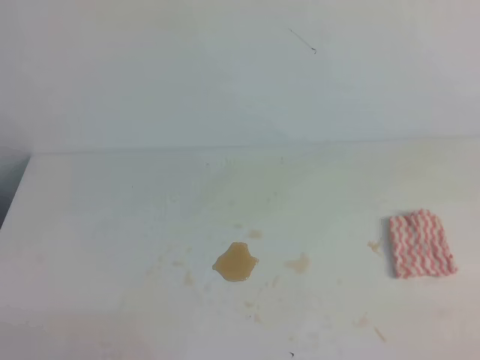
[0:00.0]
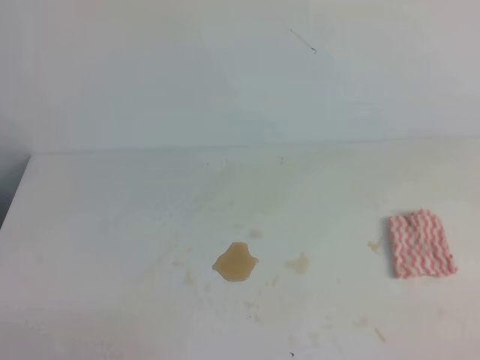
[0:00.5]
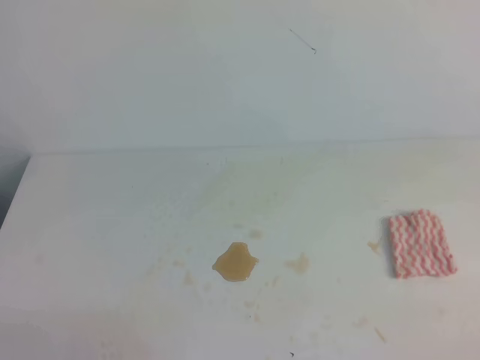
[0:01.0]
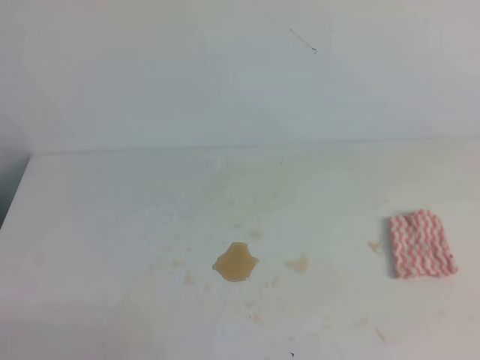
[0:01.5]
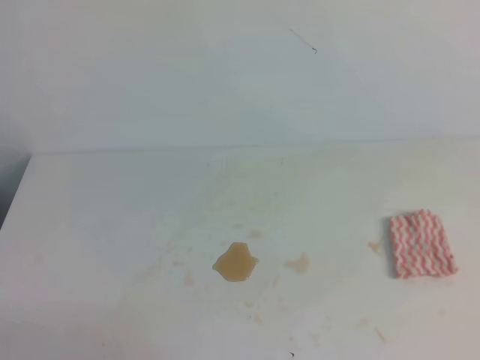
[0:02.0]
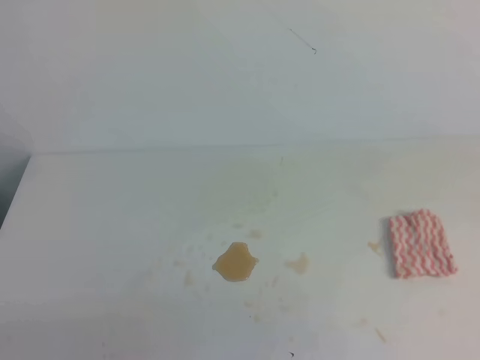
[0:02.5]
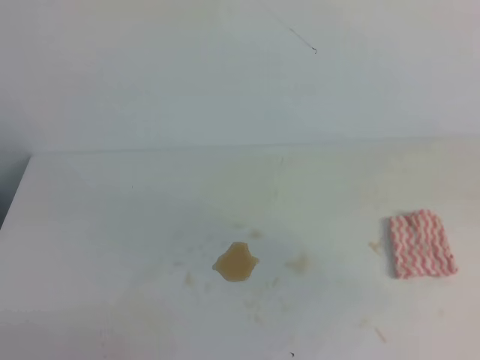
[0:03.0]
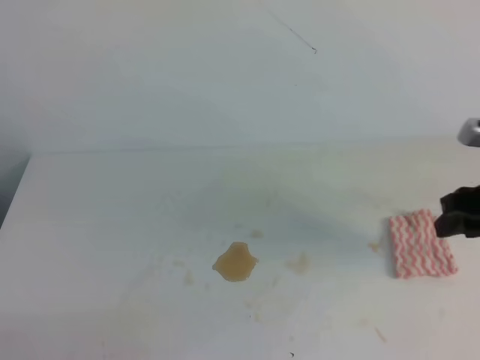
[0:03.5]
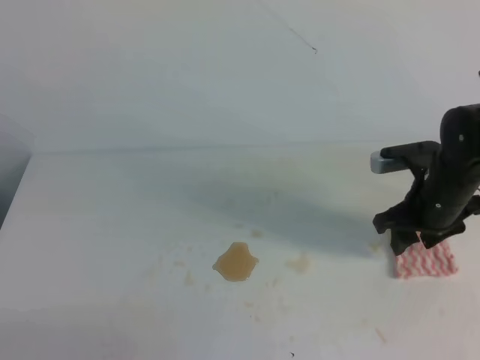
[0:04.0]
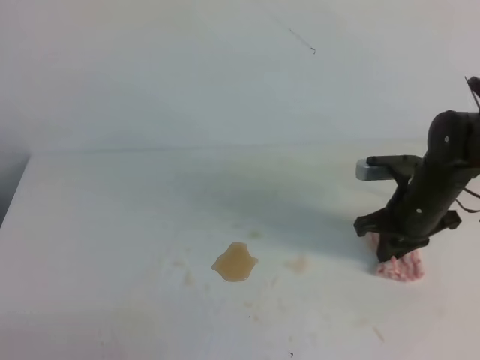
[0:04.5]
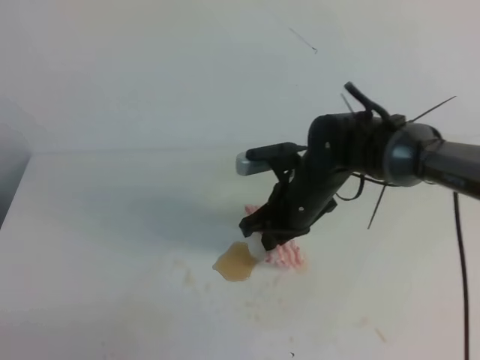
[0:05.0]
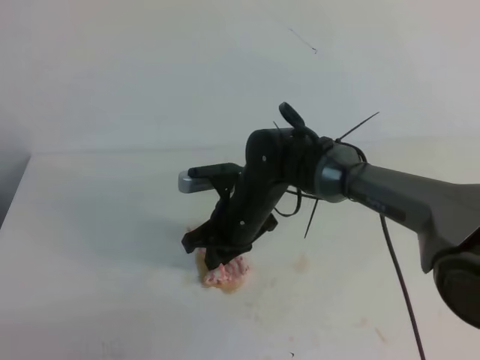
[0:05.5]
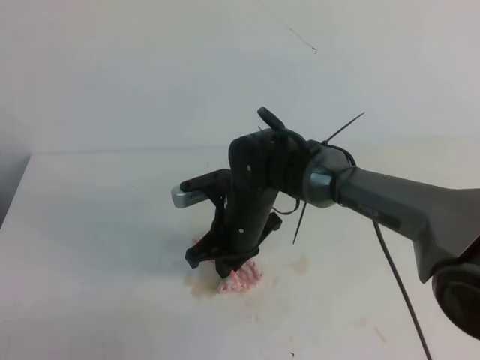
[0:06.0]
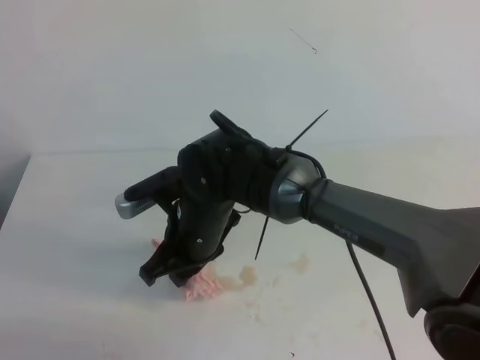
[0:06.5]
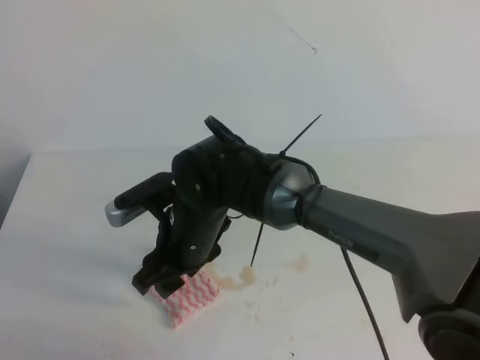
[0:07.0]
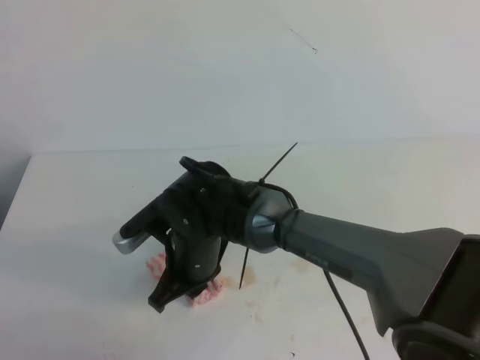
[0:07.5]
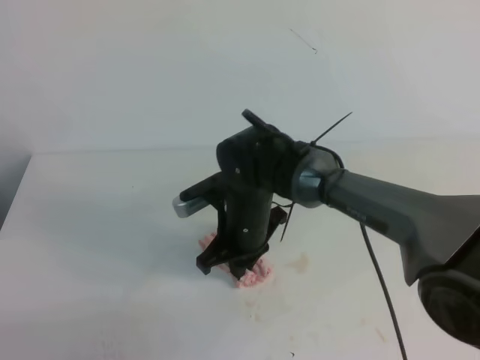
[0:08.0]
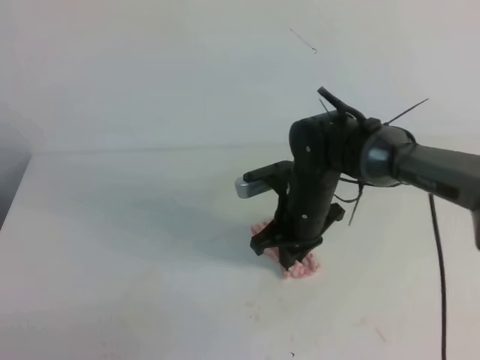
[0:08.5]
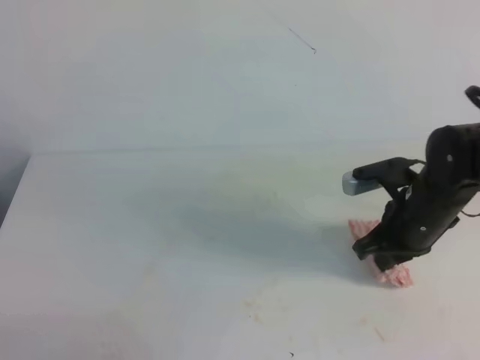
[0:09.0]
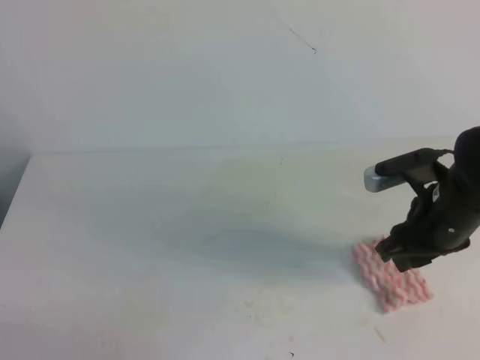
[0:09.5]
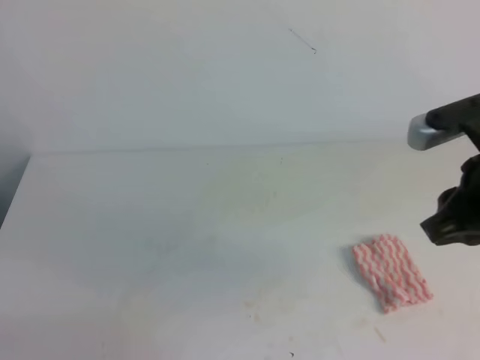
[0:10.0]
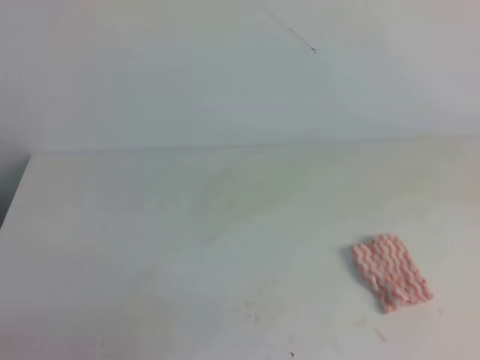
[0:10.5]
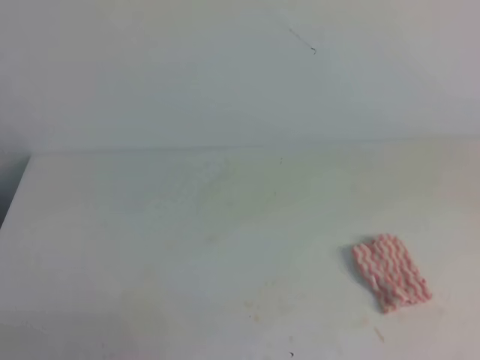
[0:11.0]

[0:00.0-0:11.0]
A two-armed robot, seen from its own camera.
0:02.0 to 0:03.5: The right gripper travels forward by roughly 25 cm, and opens up.
0:03.5 to 0:05.5: The right gripper moves to the left, about 30 cm, and closes up.
0:05.5 to 0:07.5: The right gripper heads to the left and backward, covering some 10 cm, and opens and closes again.
0:07.5 to 0:09.0: The right gripper is displaced to the right by some 25 cm.
0:09.0 to 0:11.0: The right gripper goes some 35 cm upward, backward and to the right, and opens and closes again.

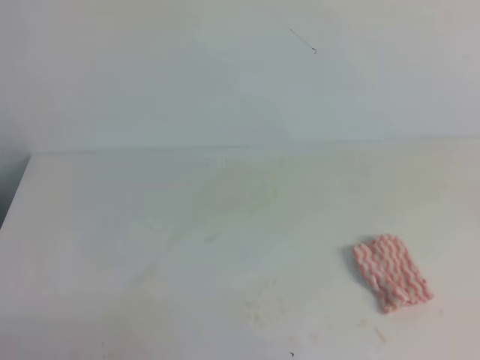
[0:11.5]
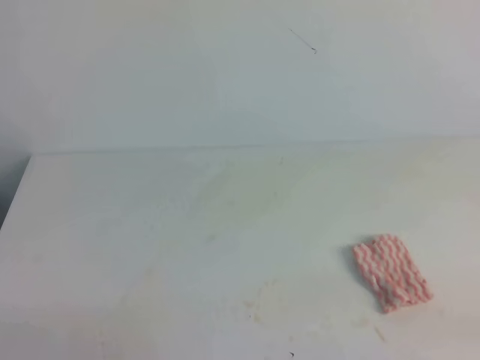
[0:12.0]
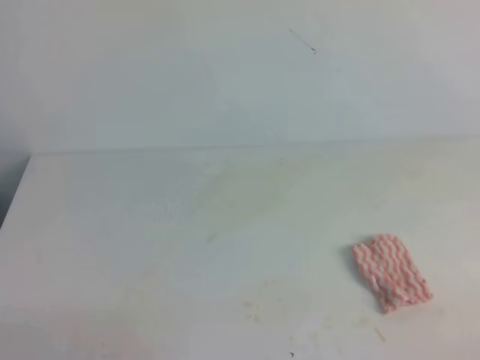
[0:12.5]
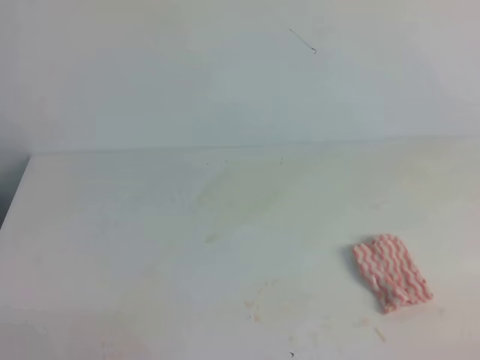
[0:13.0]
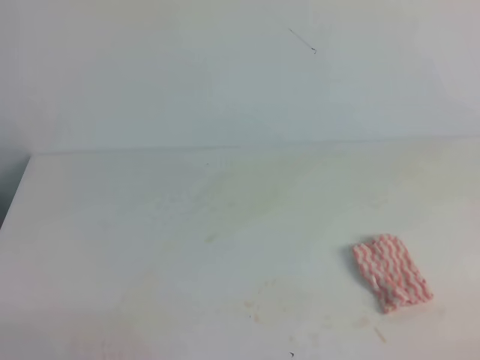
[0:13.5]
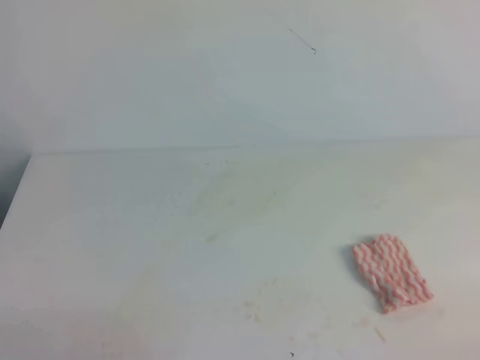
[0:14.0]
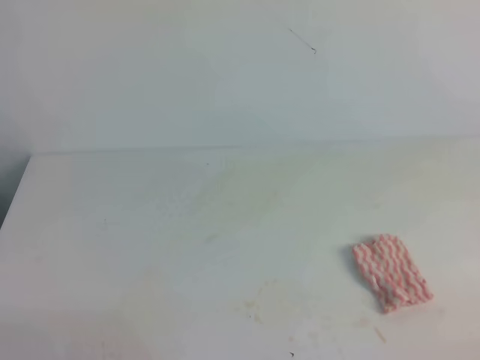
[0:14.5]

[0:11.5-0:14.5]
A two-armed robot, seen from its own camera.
0:13.0 to 0:14.5: Both grippers stay put.

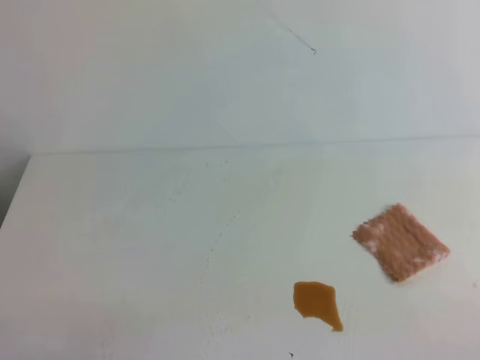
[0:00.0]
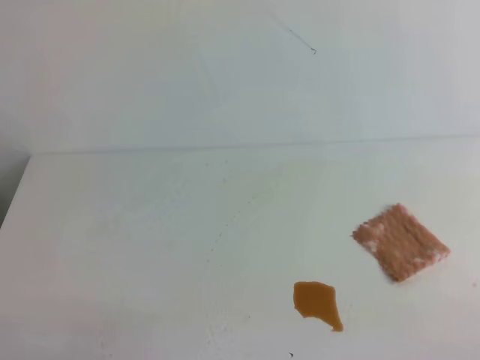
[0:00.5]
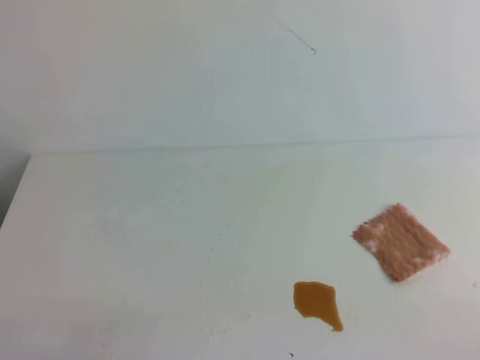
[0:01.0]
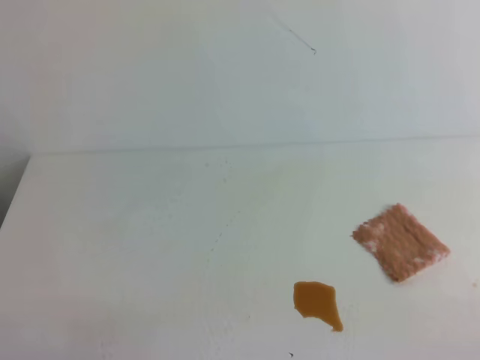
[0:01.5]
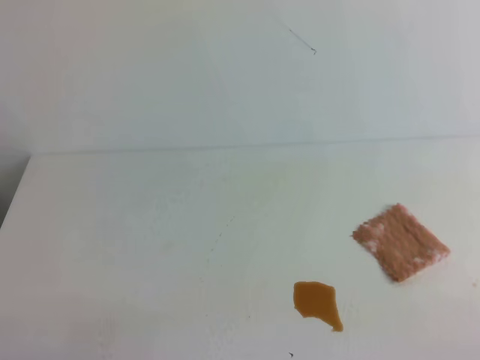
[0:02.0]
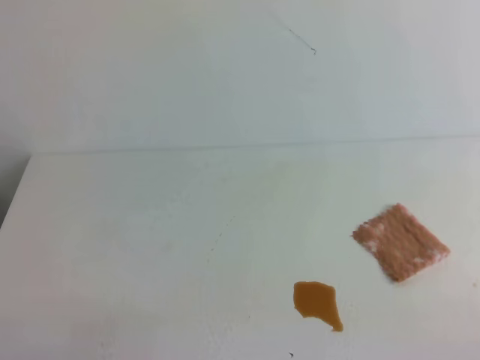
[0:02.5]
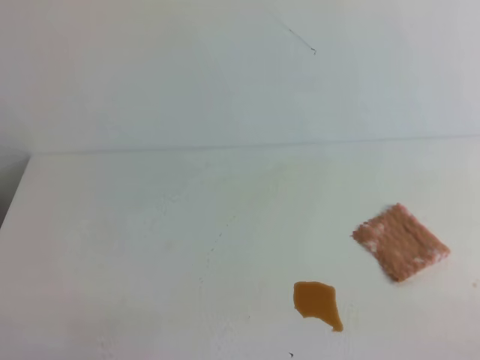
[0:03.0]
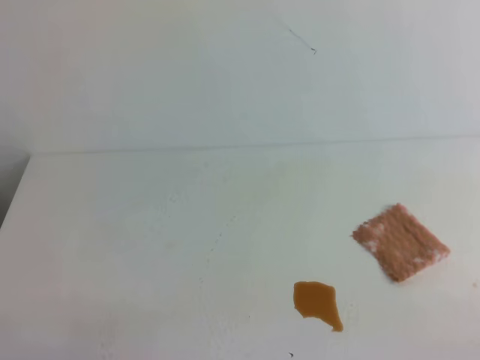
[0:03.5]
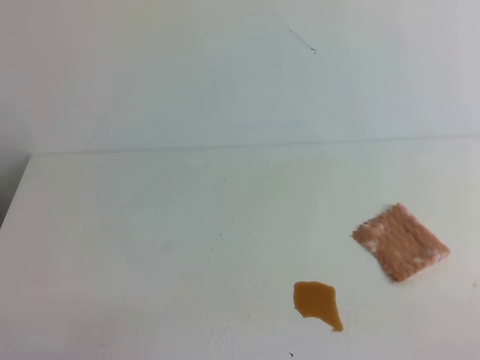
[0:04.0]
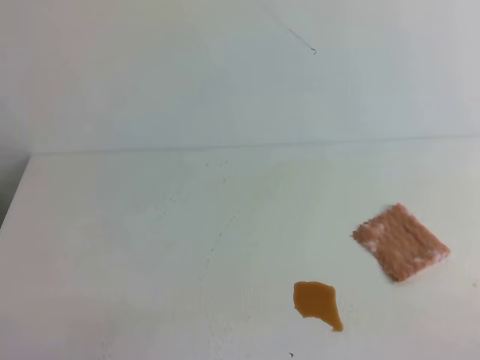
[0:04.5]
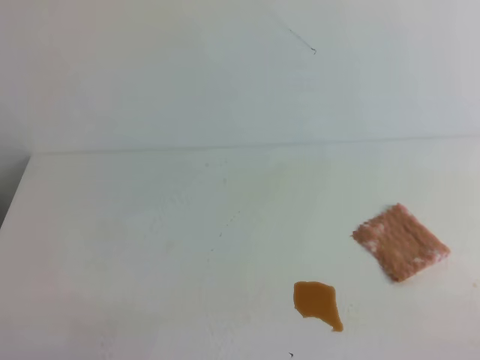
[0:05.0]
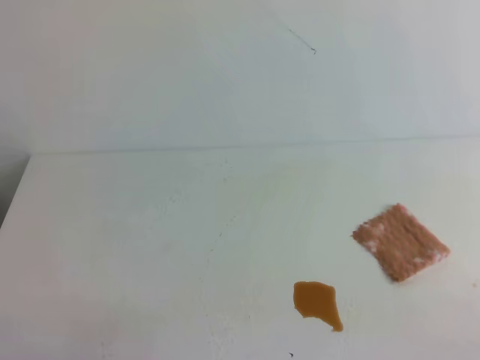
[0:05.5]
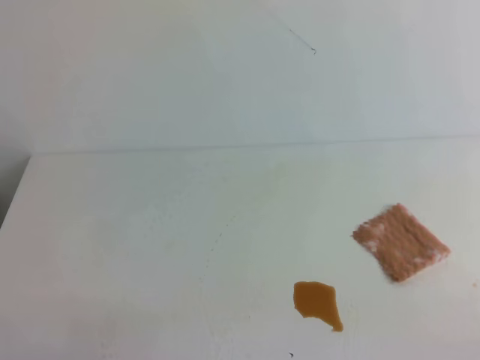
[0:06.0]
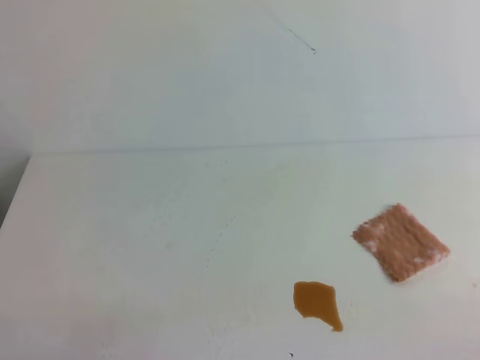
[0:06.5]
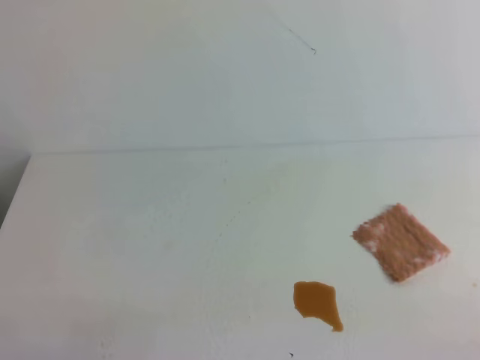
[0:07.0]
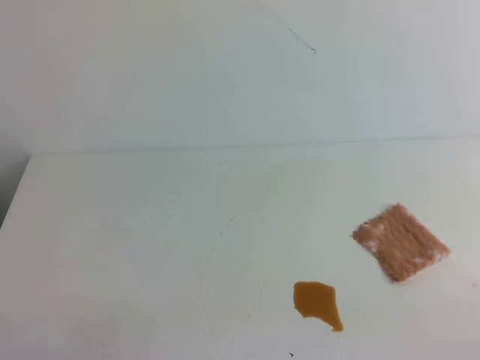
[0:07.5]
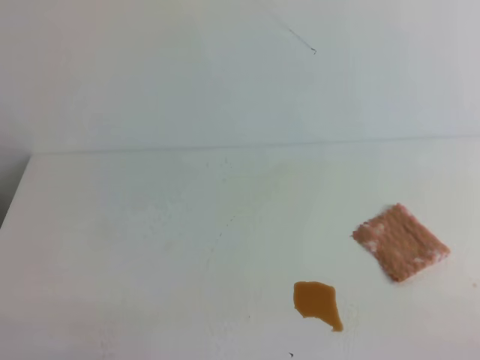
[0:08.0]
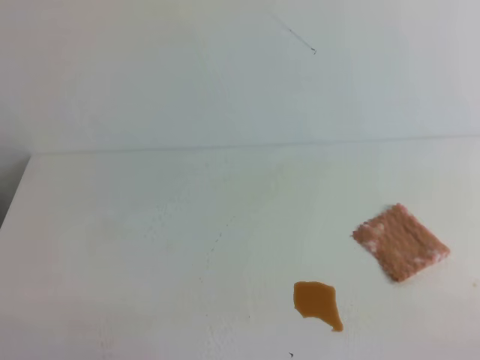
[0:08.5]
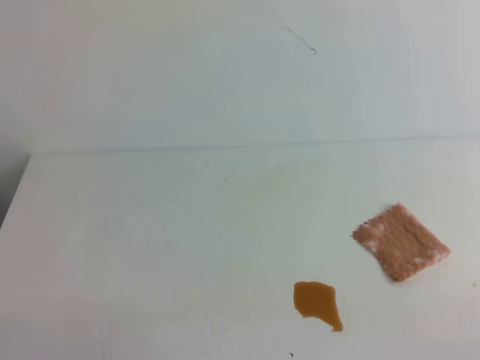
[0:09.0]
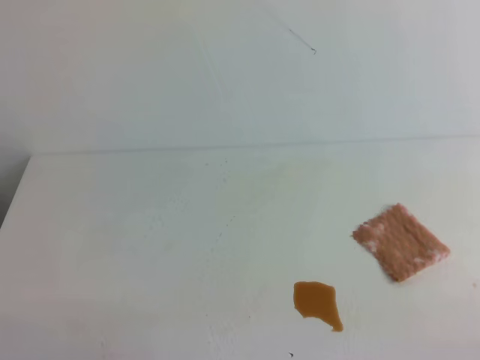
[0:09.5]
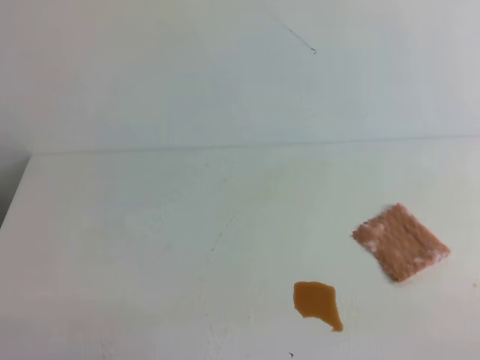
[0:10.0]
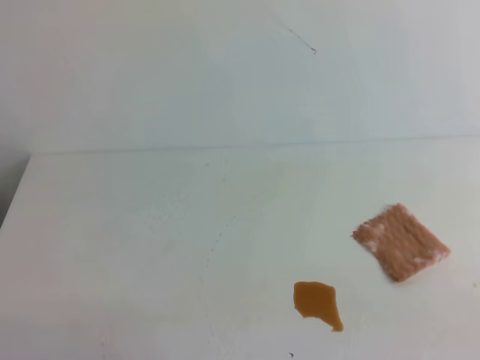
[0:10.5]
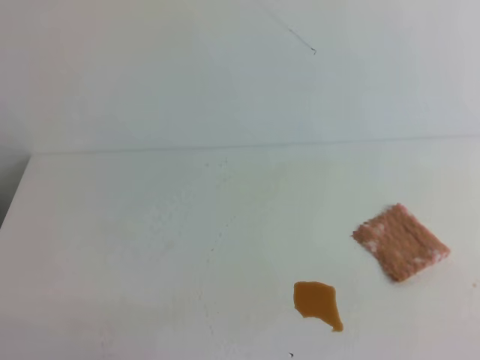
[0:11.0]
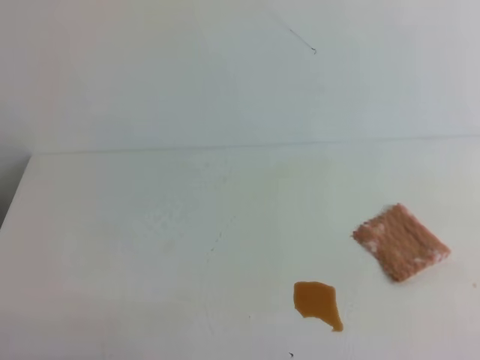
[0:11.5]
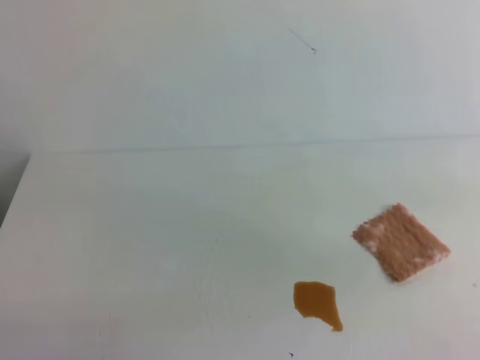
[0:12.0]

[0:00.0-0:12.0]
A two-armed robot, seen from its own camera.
0:00.0 to 0:06.0: Neither gripper changes place.
